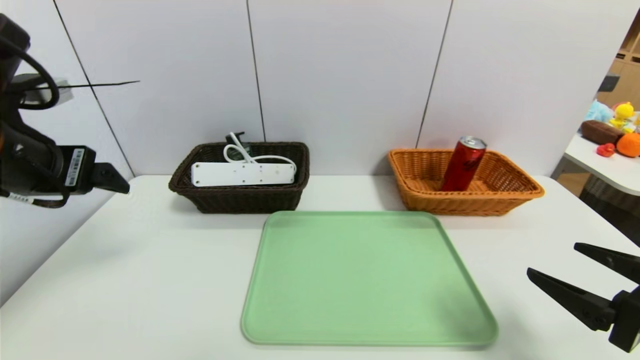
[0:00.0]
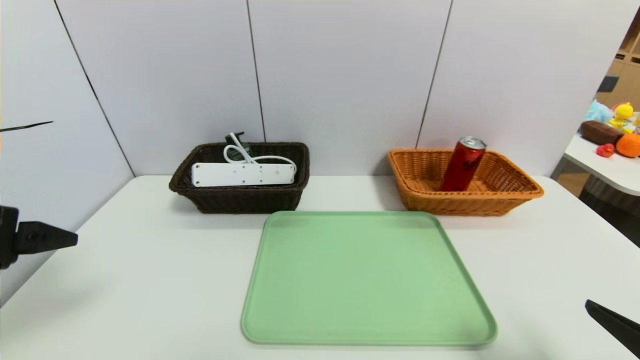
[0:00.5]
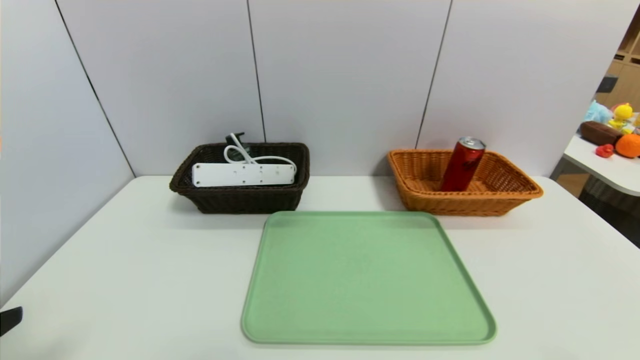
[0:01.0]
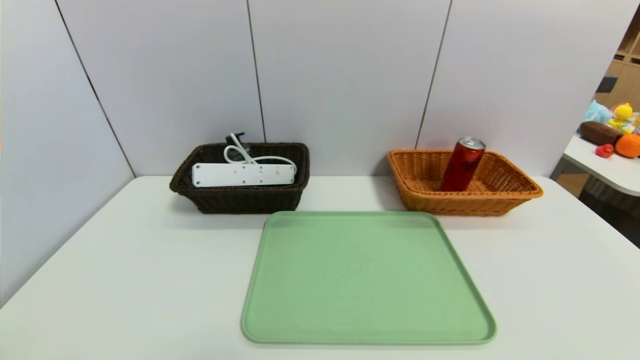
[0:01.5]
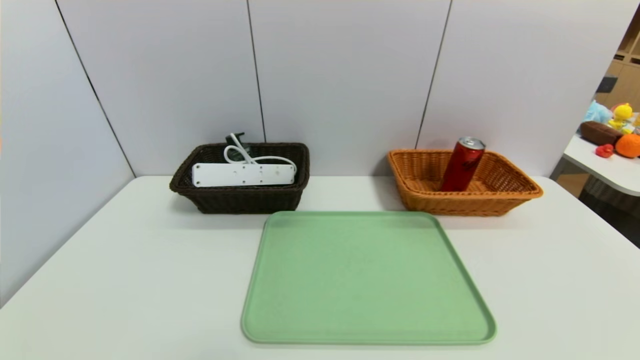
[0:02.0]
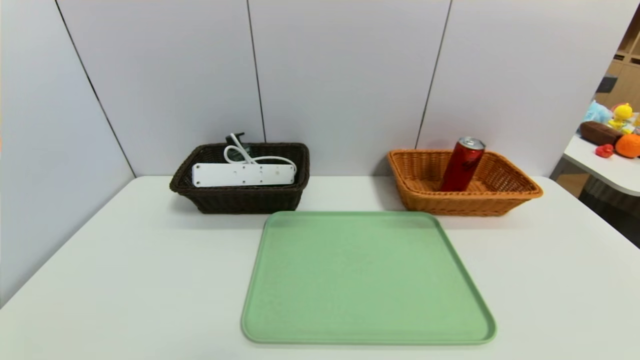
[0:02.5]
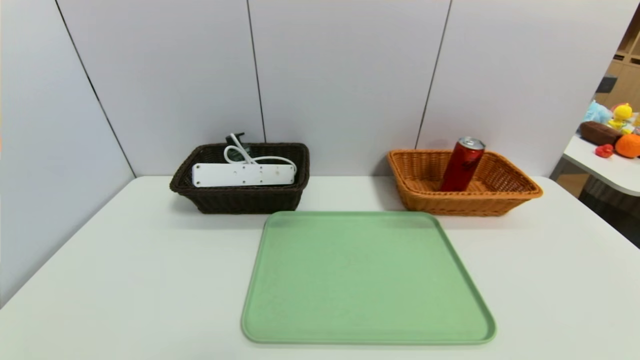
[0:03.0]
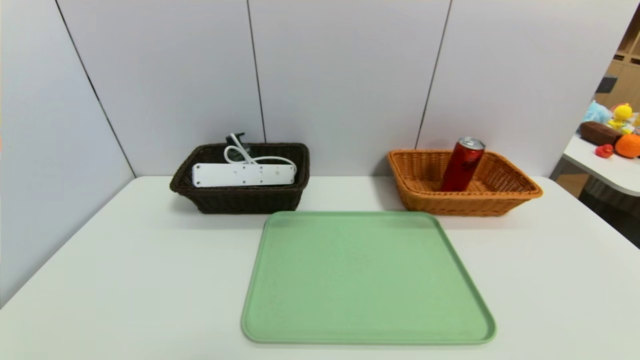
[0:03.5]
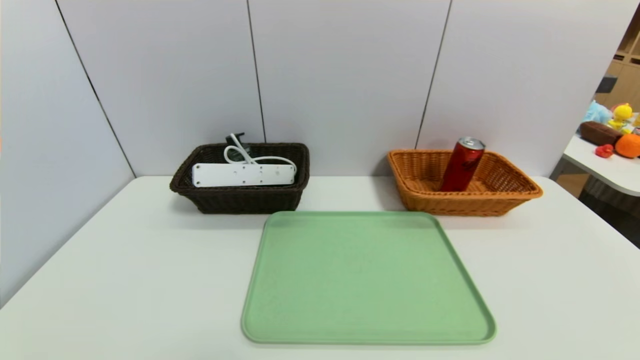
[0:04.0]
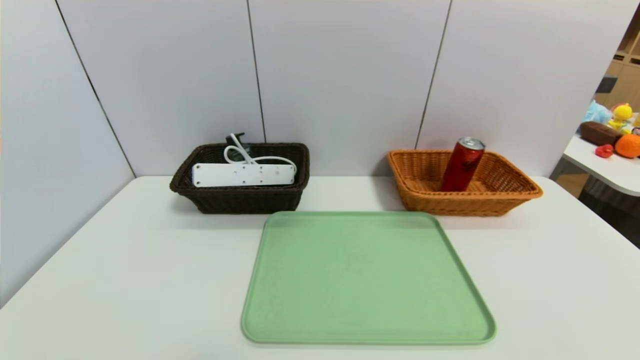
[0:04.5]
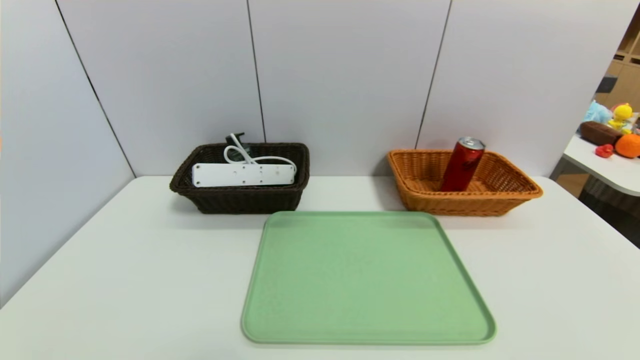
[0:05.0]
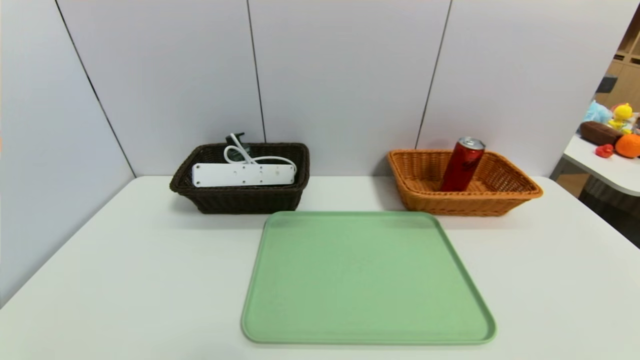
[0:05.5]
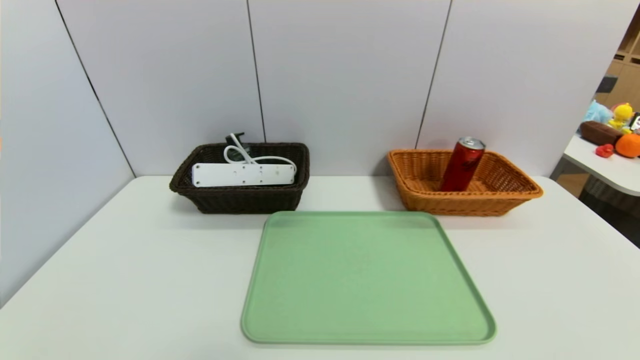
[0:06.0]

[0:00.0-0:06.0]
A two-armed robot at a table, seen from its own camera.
Task of the whole recording: place the food in the right basket with the right gripper, and place the non food items in the left basket with the left gripper.
0:00.0 to 0:02.0: The left gripper heads backward and downward, covering some 30 cm. Meanwhile the right gripper goes about 15 cm backward.

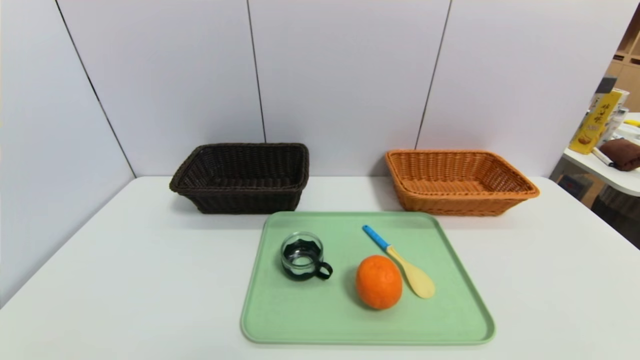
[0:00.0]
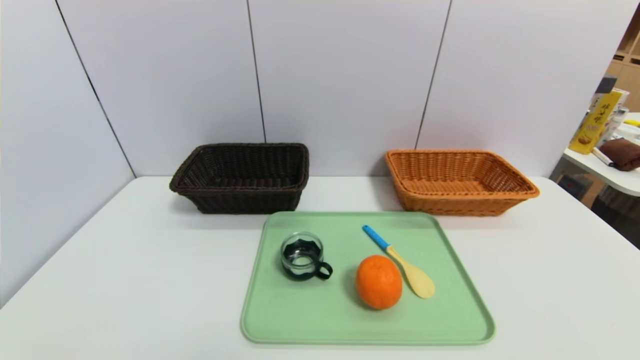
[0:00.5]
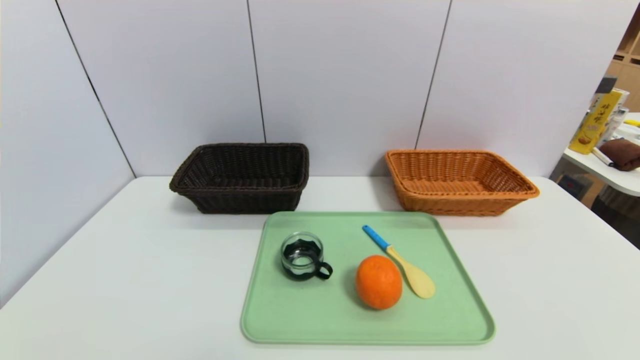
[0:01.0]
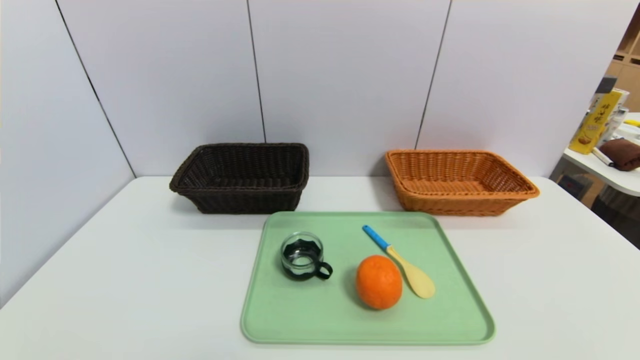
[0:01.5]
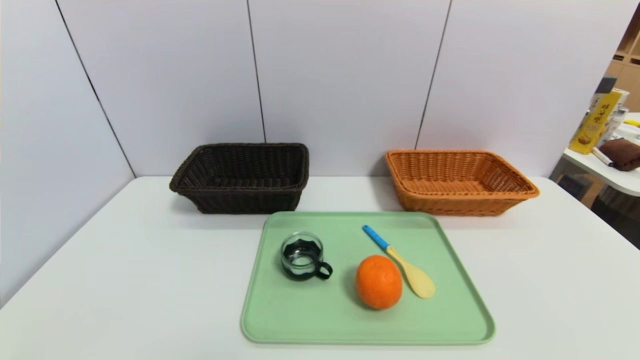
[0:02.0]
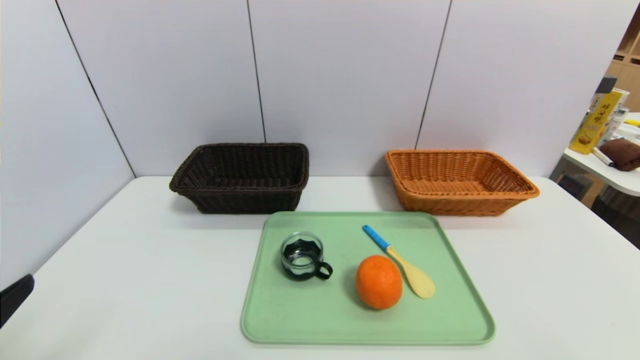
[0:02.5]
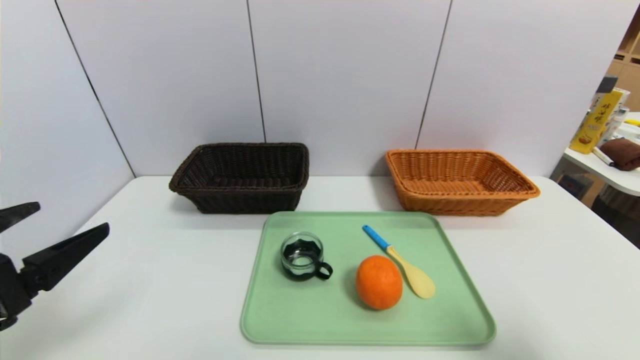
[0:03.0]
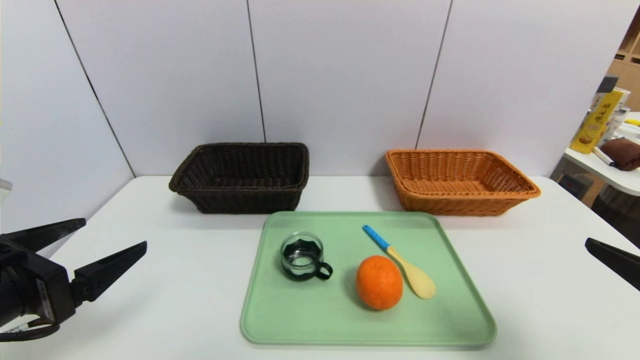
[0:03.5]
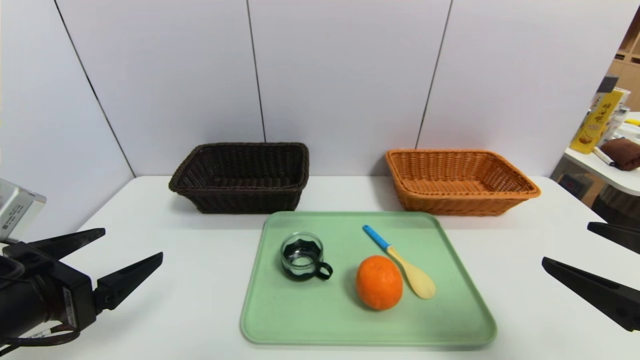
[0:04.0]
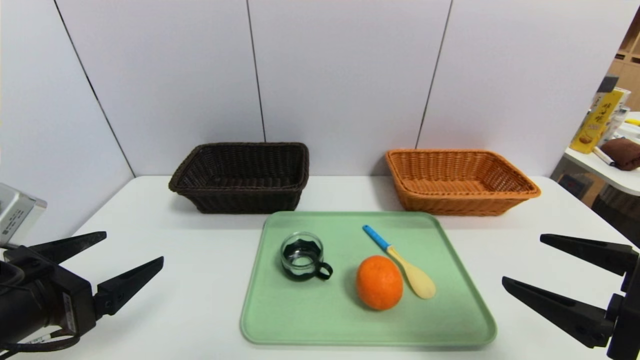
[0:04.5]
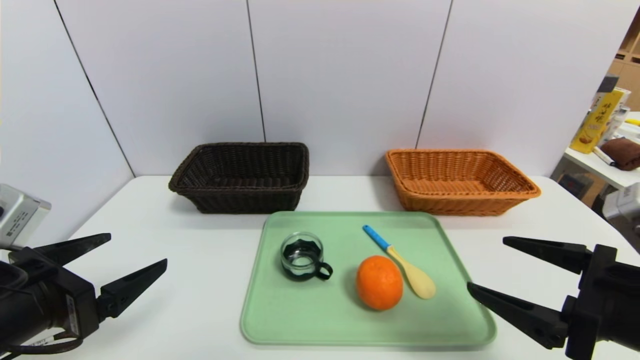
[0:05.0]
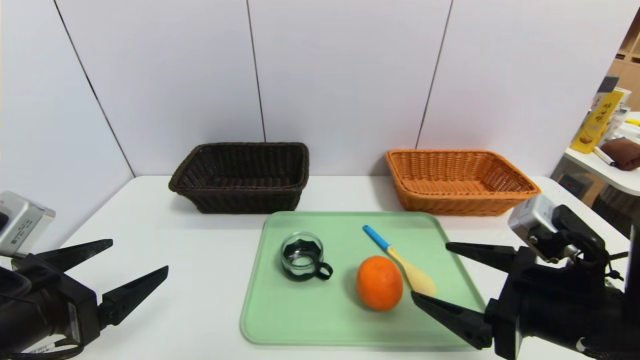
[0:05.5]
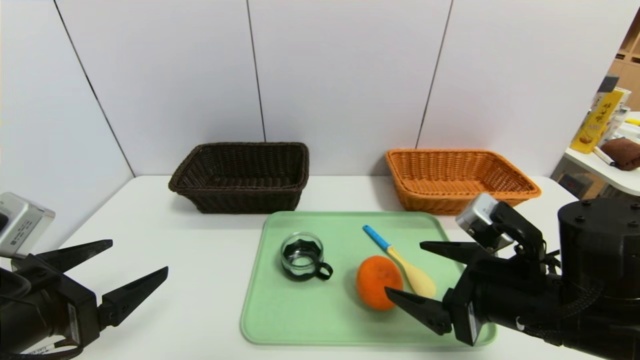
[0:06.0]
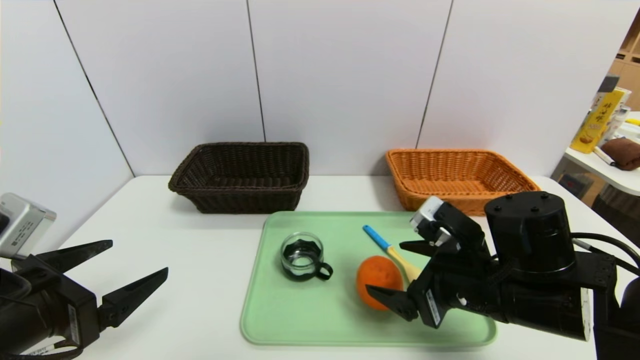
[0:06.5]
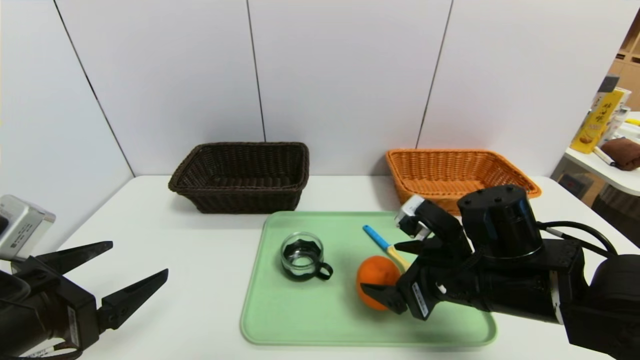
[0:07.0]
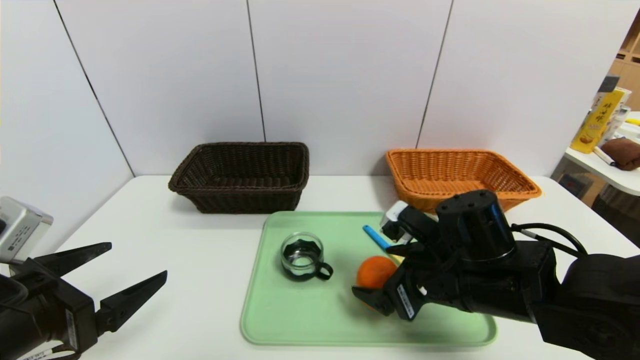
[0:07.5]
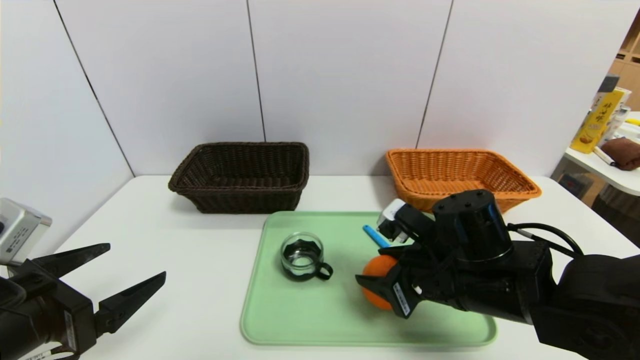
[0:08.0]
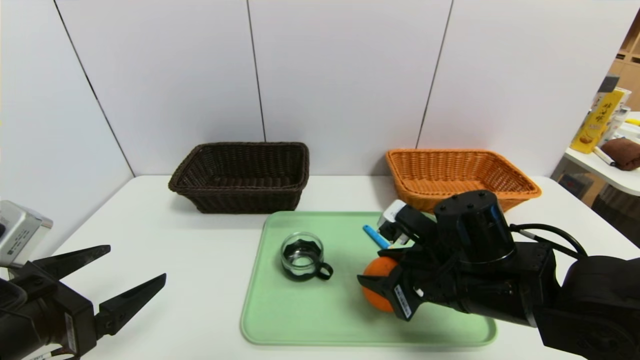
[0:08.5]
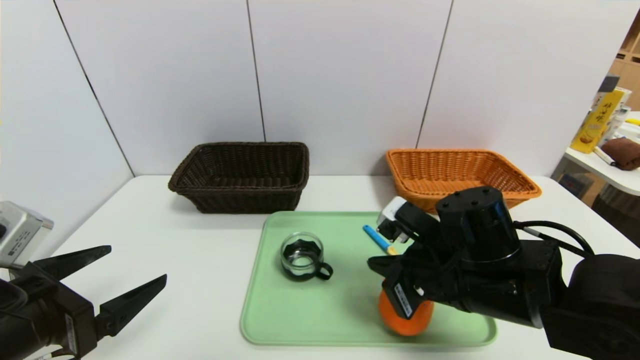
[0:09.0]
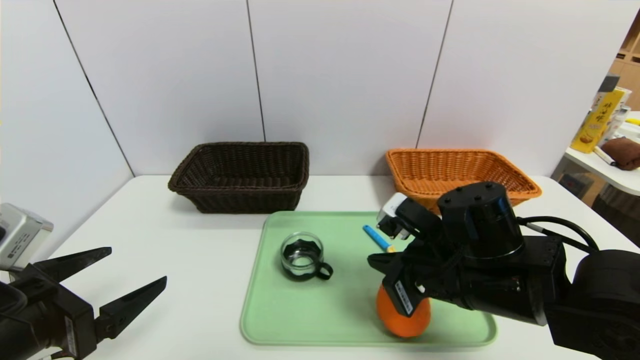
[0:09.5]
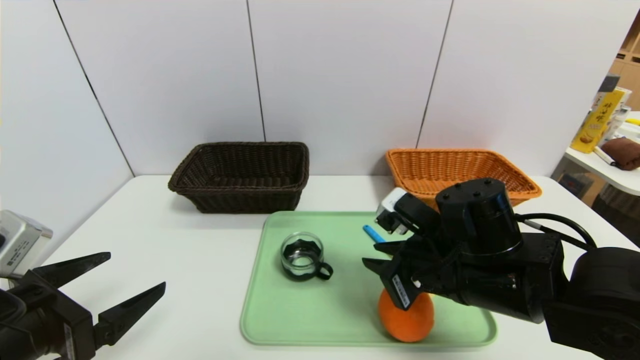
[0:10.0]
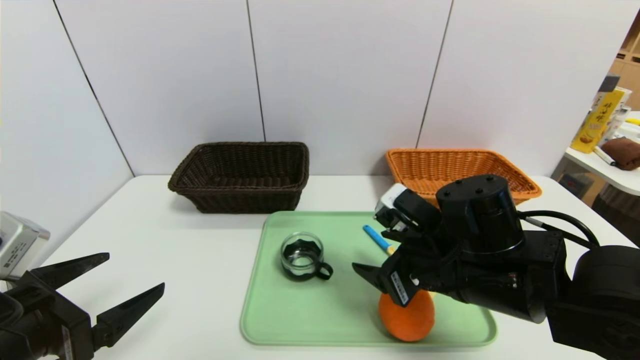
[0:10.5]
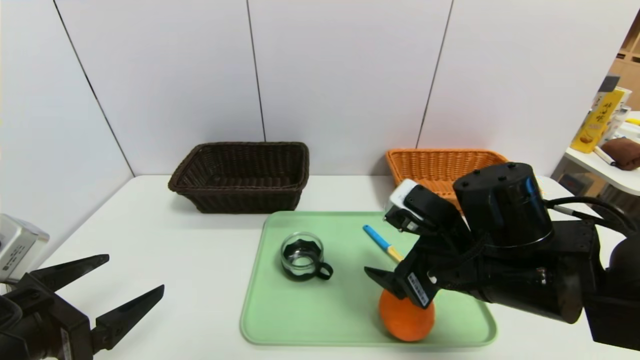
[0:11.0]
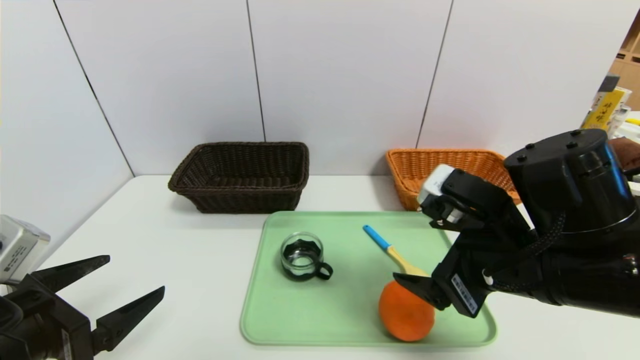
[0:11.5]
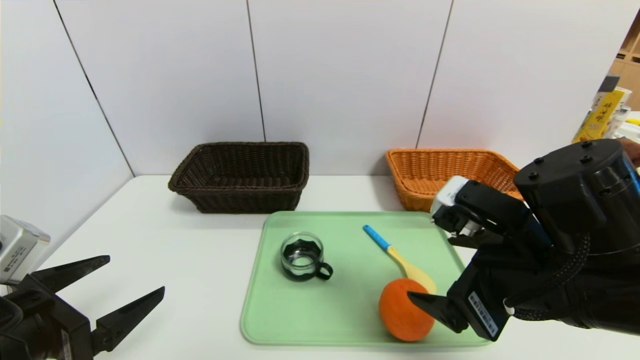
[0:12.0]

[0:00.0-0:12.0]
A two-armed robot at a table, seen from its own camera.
Task of the whole recording: place the food in the right basket with the right gripper, and place the non food items in the left basket with the left gripper.
0:02.0 to 0:04.0: Both grippers travel together forward and upward, roughly 15 cm.
0:04.0 to 0:06.0: The right gripper heads to the left, forward and downward, covering approximately 15 cm.
0:06.0 to 0:08.0: The right gripper shifts by about 5 cm, and closes.
0:08.0 to 0:10.0: The grippers stay close to where they were, moving slightly.
0:10.0 to 0:12.0: The right gripper goes approximately 10 cm upward and backward, and opens up.

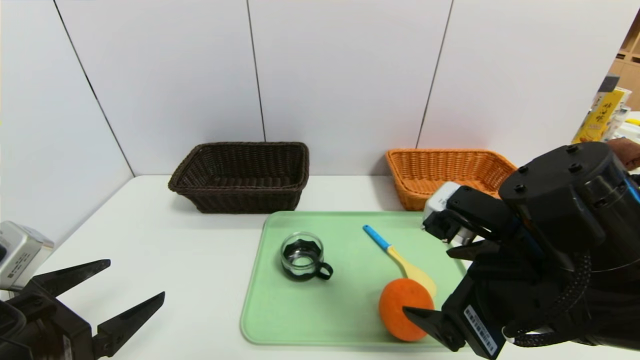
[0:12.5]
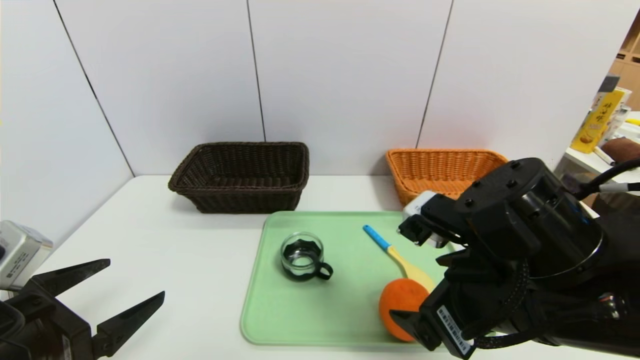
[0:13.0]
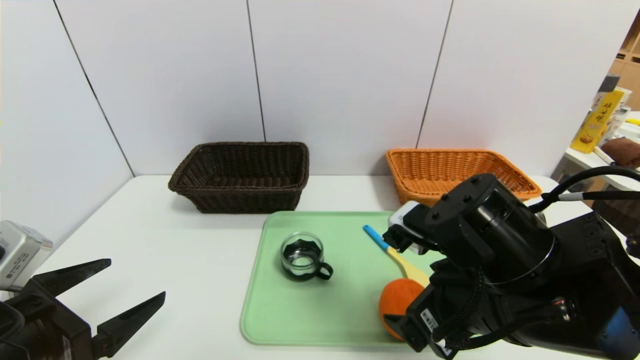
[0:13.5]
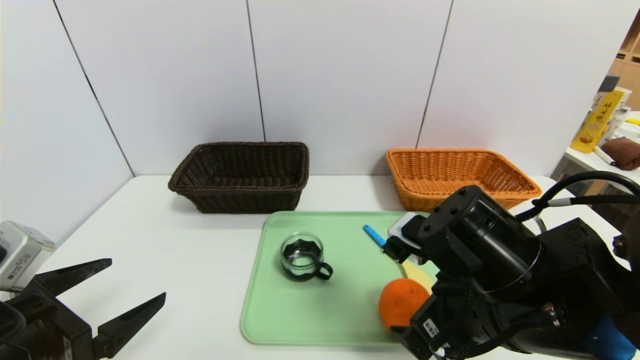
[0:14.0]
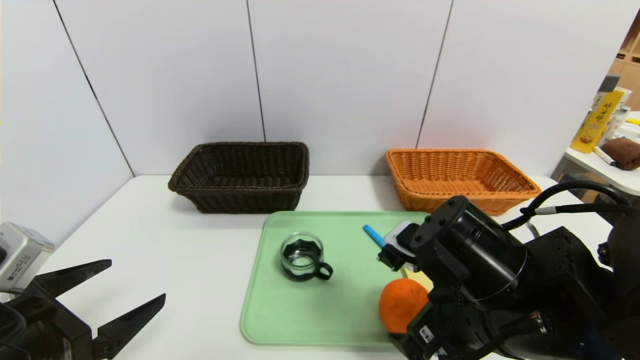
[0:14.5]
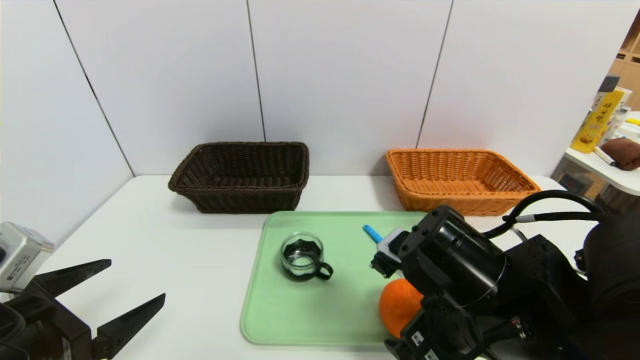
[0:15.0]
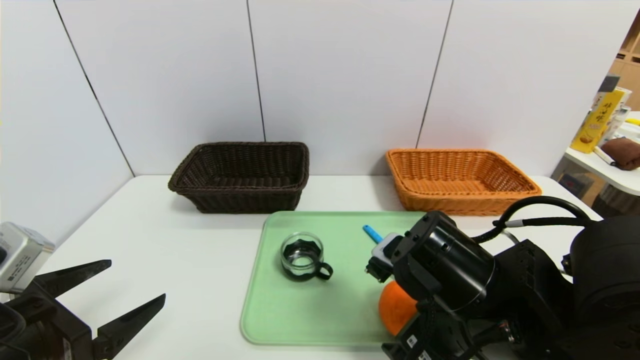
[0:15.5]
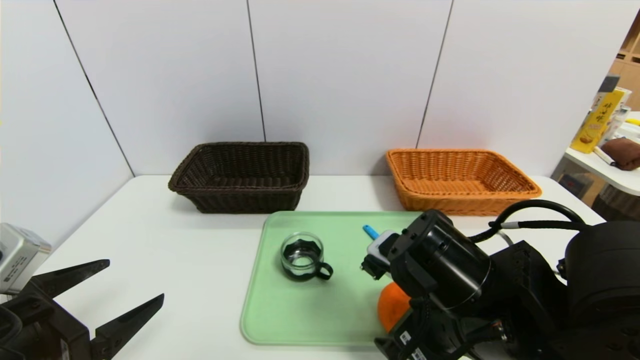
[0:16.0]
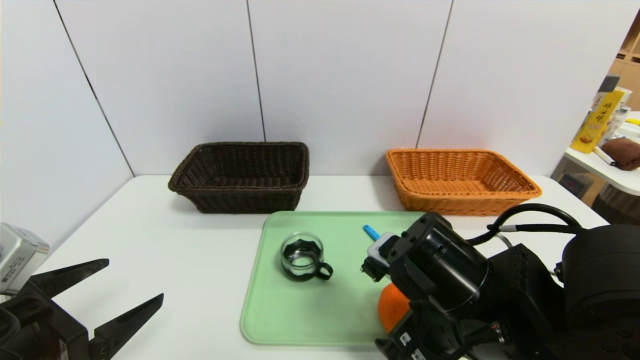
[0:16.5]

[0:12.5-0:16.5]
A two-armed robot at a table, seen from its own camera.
Task of the whole recording: place the food in the right basket with the right gripper, and place the non food items in the left basket with the left gripper.
0:12.5 to 0:14.5: The right gripper moves about 5 cm.
0:14.5 to 0:16.5: The grippers stay close to where they were, moving slightly.
